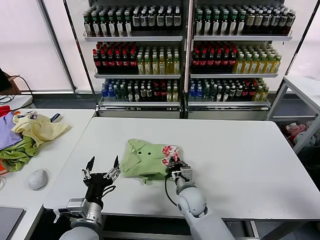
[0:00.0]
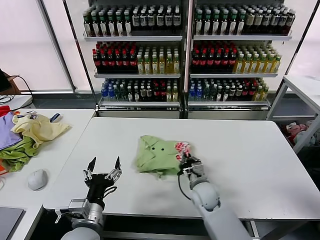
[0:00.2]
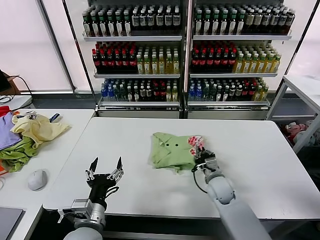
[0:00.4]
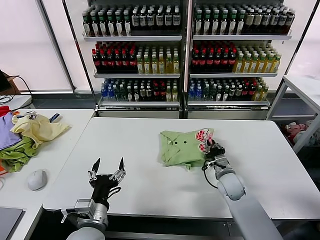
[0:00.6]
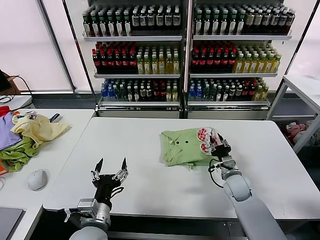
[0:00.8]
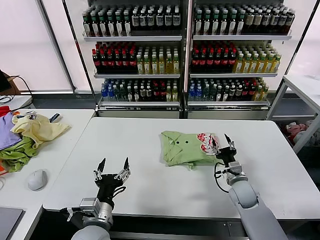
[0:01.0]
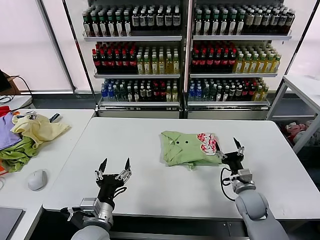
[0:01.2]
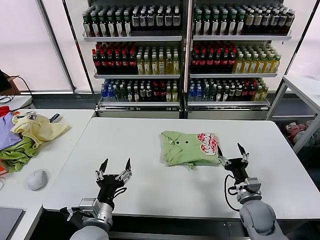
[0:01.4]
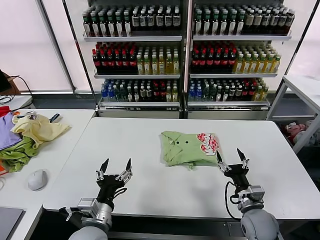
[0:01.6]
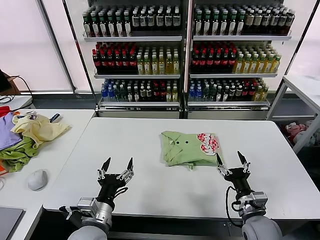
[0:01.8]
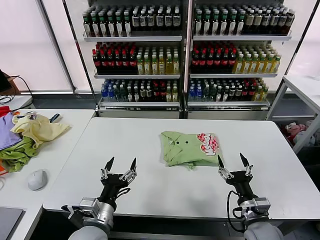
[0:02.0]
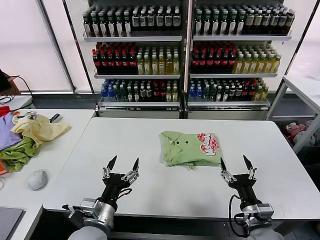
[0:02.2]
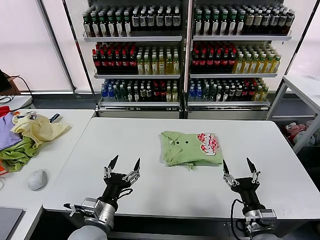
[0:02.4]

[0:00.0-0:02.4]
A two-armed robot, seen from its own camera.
Task of the whole recording: fold and organize the clothes.
0:00.0 to 0:01.2: The right gripper shifts some 20 cm to the right, and opens.
0:01.2 to 0:02.4: The right gripper goes about 15 cm backward.

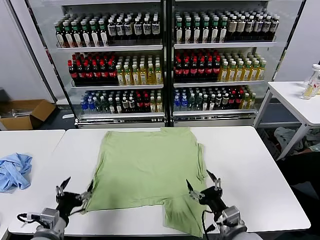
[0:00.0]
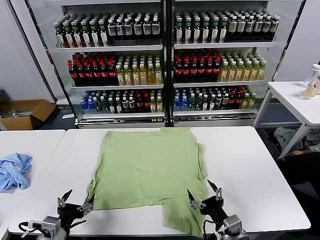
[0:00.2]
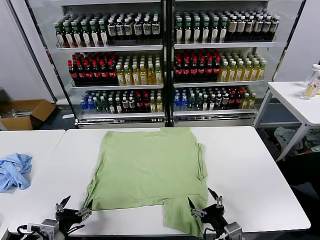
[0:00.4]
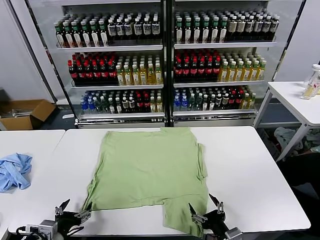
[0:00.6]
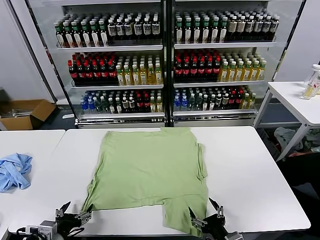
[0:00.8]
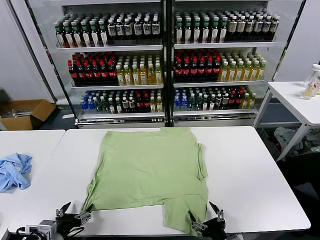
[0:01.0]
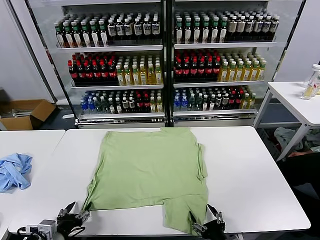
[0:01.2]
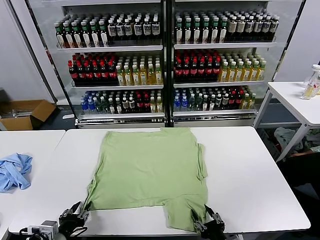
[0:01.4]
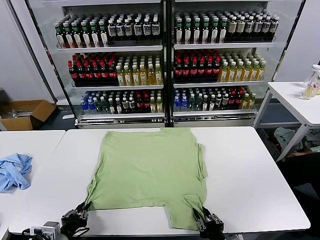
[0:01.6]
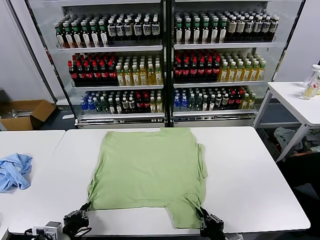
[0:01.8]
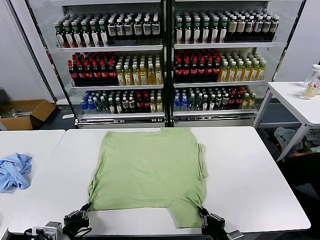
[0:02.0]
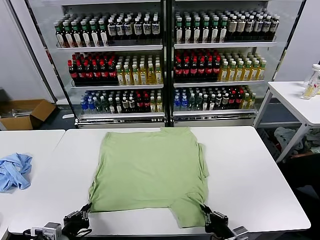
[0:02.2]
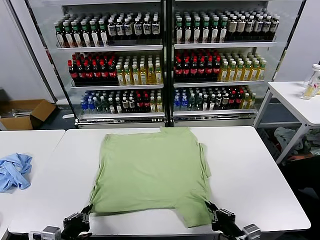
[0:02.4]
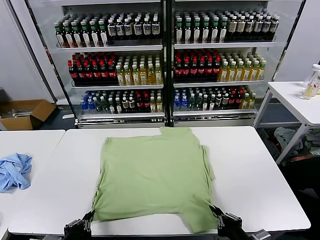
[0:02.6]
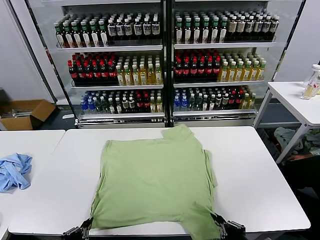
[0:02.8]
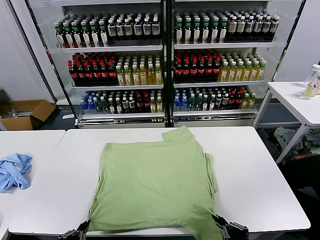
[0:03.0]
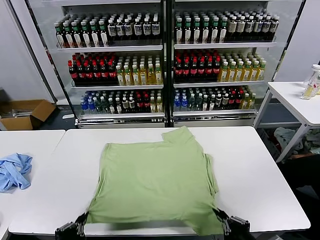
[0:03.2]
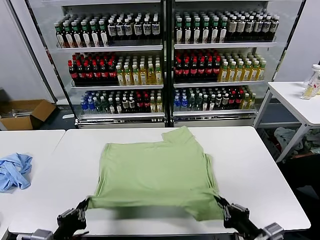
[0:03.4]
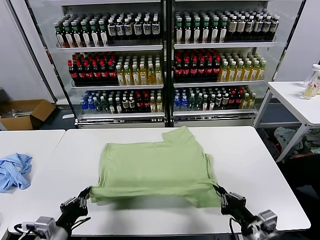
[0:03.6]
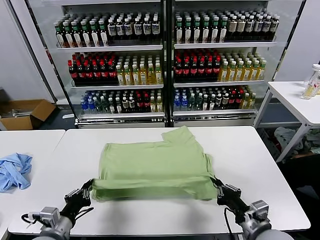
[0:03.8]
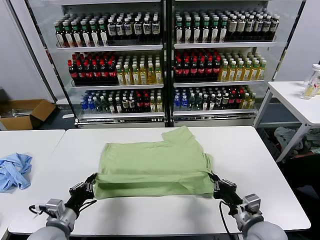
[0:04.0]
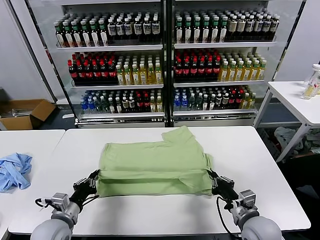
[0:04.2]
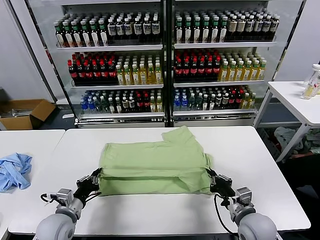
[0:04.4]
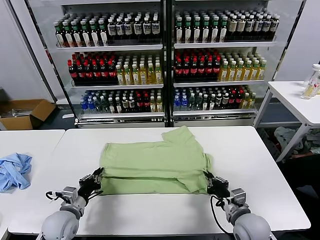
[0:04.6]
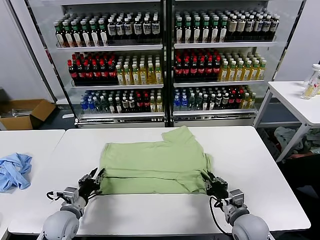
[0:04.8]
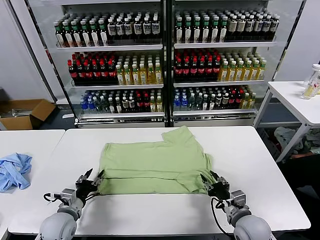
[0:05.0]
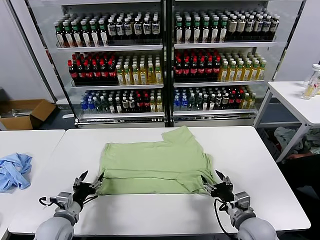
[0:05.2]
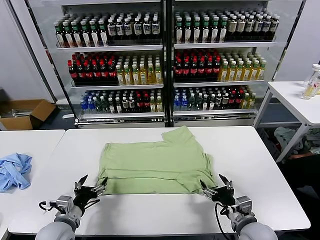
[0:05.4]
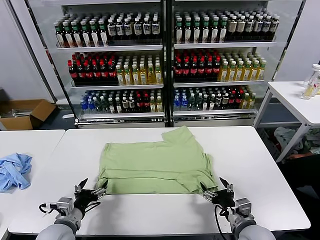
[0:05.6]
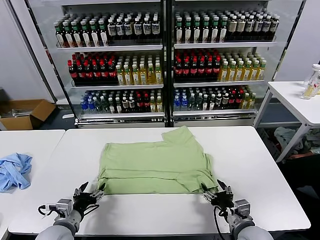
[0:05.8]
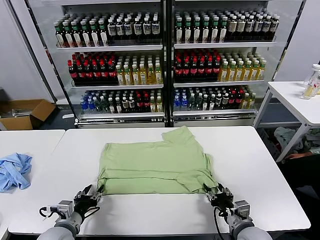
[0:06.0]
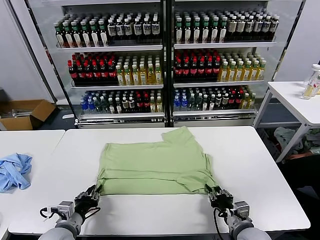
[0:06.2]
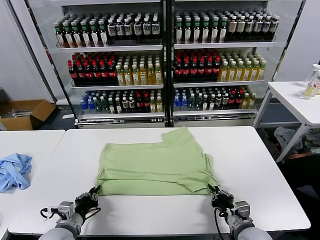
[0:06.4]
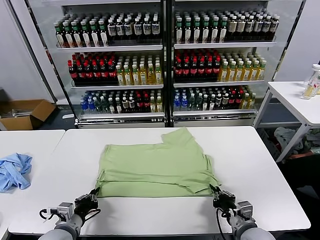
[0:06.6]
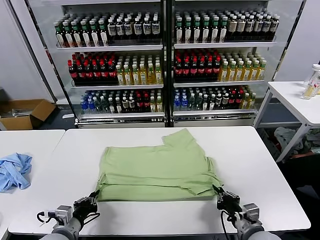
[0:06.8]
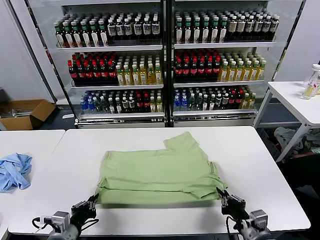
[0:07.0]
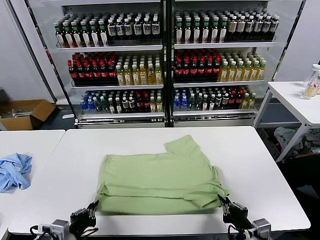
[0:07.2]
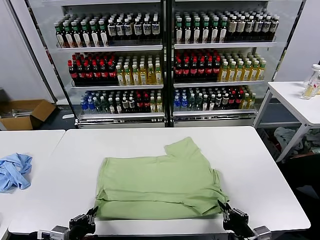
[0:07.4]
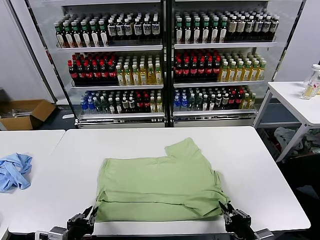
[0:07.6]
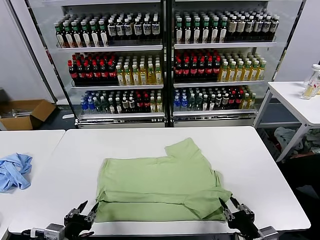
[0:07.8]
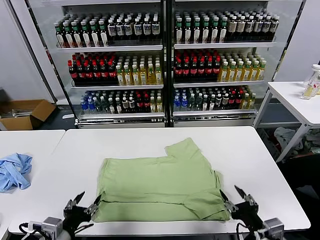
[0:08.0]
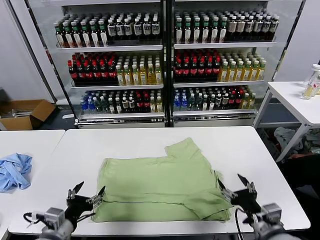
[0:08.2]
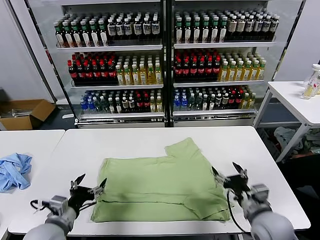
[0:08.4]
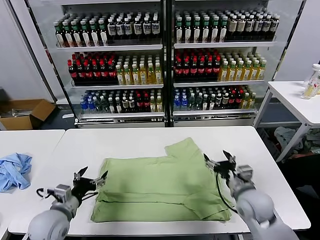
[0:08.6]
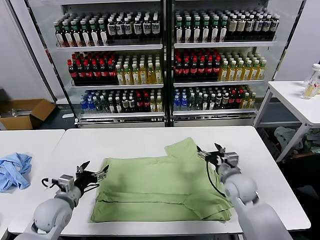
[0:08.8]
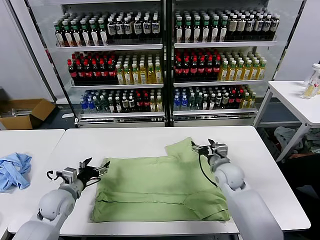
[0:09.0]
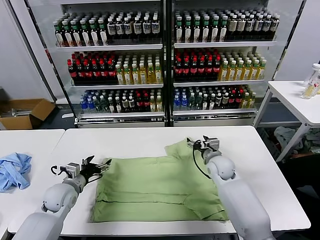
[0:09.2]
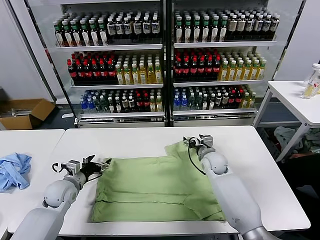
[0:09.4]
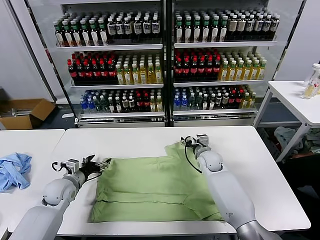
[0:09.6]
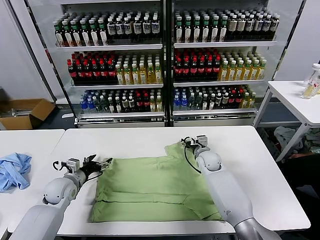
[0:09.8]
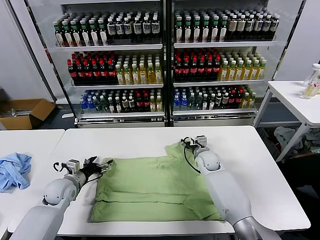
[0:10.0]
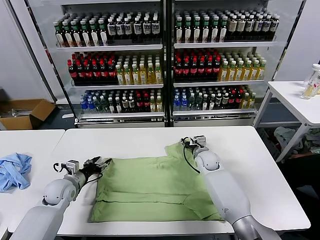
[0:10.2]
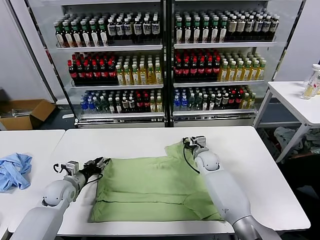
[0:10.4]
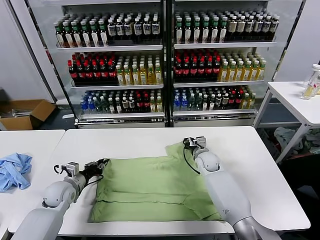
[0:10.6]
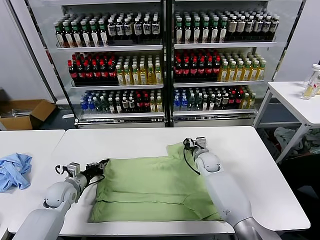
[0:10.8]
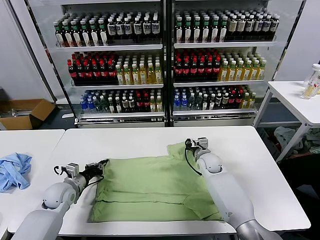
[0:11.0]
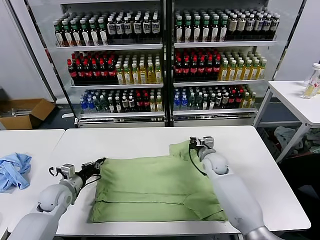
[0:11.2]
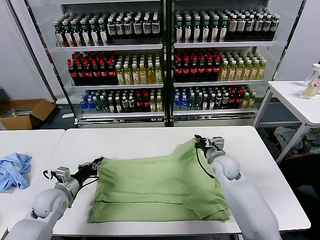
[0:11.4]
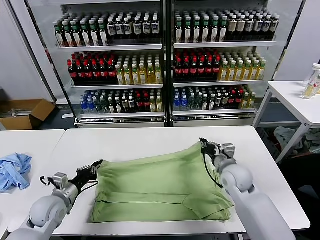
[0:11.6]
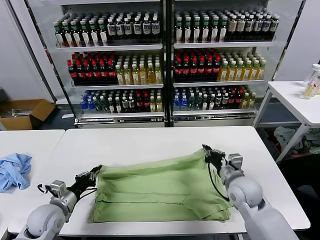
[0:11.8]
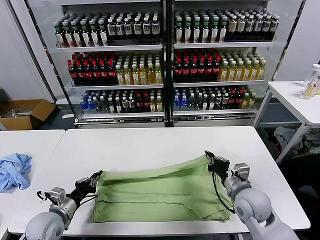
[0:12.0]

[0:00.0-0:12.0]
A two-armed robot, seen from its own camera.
Task of the whole recording: fold and organize the clothes.
Step, 0:00.0 to 0:02.2: use both grippers simultaneously to clamp the lower edge of the clothing fabric.
Step, 0:02.4 to 0:05.0: use both grippers to drag the lower edge of the fabric forward and fold it over the upper edge.
Step, 0:05.2 to 0:07.6: Drag the clothes downward with both gripper.
Step, 0:08.0 to 0:10.8: use both grippers simultaneously to clamp the upper edge of the clothing fabric.
0:01.6 to 0:03.0: The right gripper shifts about 10 cm upward and to the right. Meanwhile the left gripper moves backward and upward, approximately 10 cm.
0:03.0 to 0:04.4: The two grippers go roughly 20 cm forward and downward.
0:04.4 to 0:06.0: The right gripper opens up. Meanwhile the left gripper opens up.
0:06.0 to 0:07.6: The two grippers go approximately 10 cm backward and upward.
0:07.6 to 0:09.0: The left gripper heads forward, covering approximately 20 cm, and opens up, while the right gripper shifts approximately 30 cm forward, and opens.
0:09.0 to 0:10.4: The right gripper goes some 5 cm forward, and closes its fingers, while the left gripper shifts by some 5 cm, and closes up.
0:10.4 to 0:12.0: The right gripper goes roughly 20 cm backward, and closes up, while the left gripper moves backward, some 10 cm, and closes up.

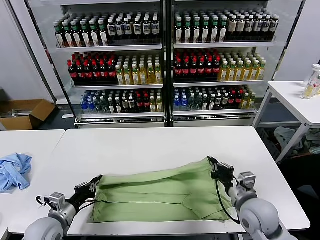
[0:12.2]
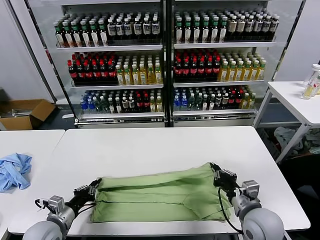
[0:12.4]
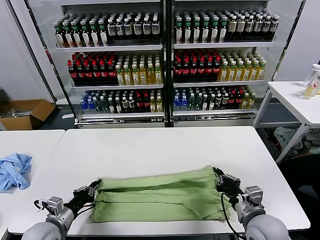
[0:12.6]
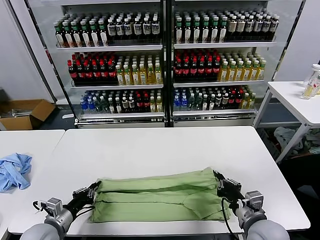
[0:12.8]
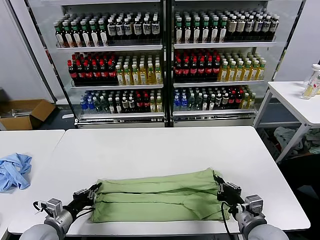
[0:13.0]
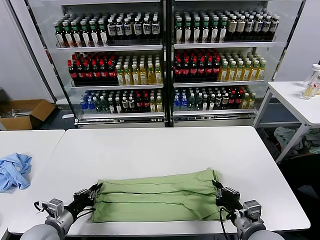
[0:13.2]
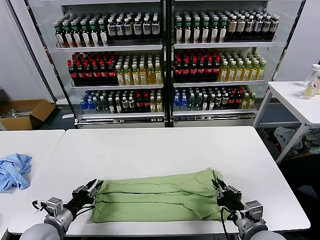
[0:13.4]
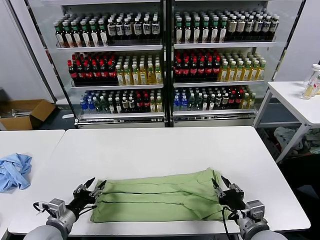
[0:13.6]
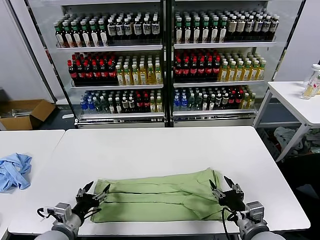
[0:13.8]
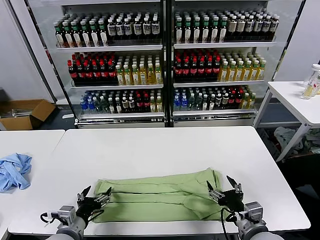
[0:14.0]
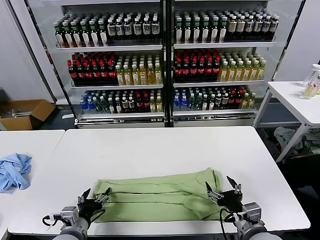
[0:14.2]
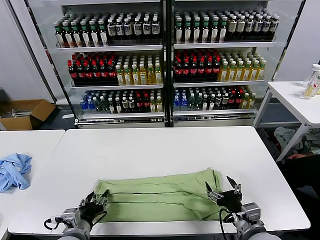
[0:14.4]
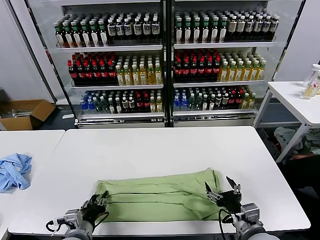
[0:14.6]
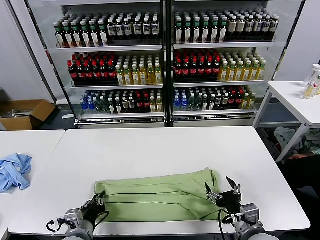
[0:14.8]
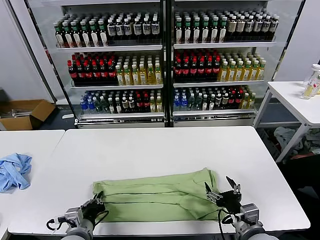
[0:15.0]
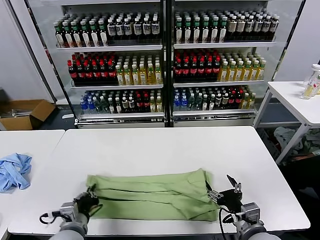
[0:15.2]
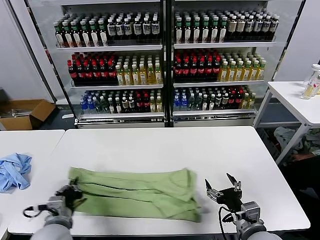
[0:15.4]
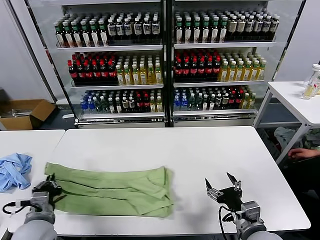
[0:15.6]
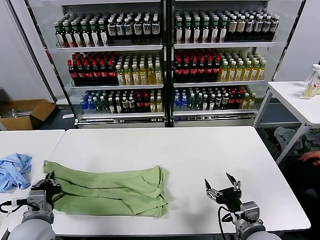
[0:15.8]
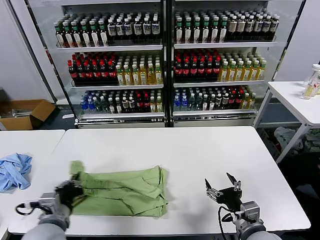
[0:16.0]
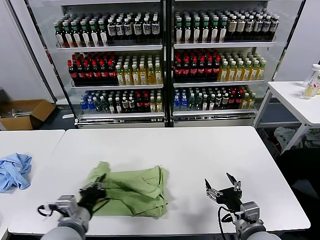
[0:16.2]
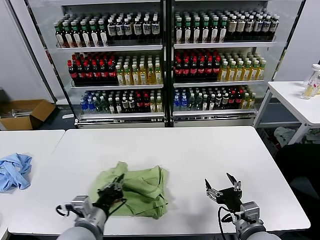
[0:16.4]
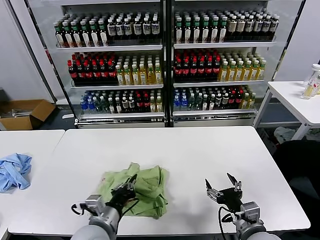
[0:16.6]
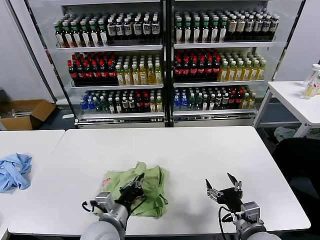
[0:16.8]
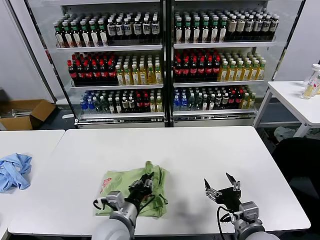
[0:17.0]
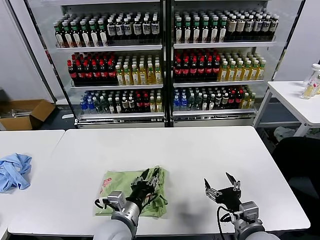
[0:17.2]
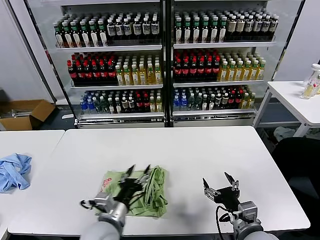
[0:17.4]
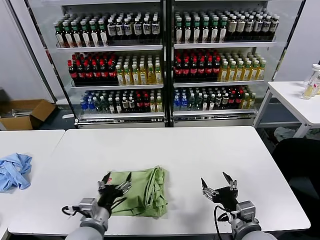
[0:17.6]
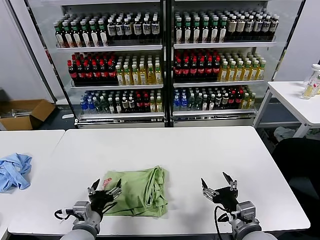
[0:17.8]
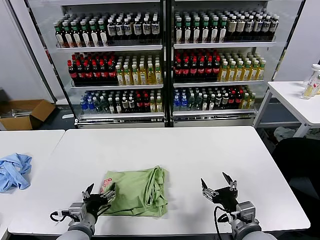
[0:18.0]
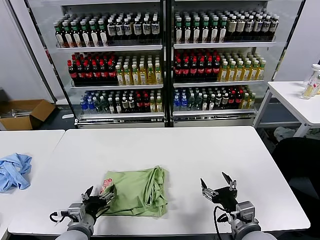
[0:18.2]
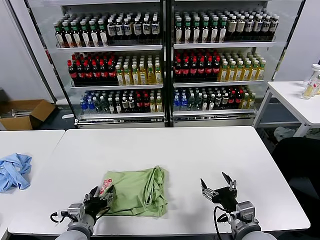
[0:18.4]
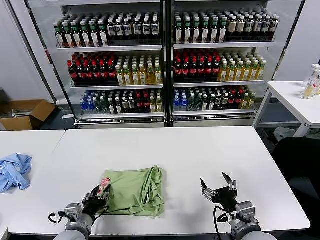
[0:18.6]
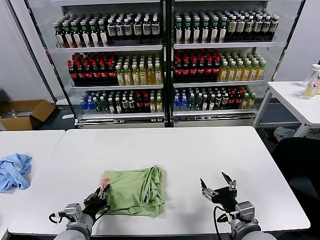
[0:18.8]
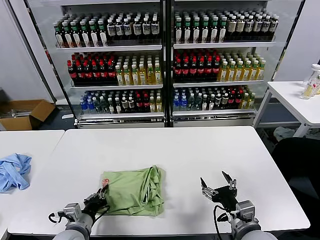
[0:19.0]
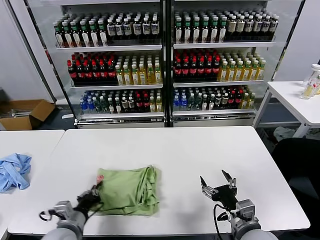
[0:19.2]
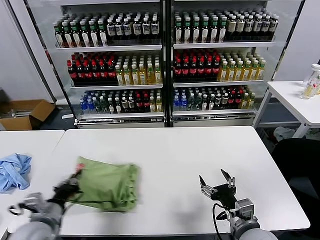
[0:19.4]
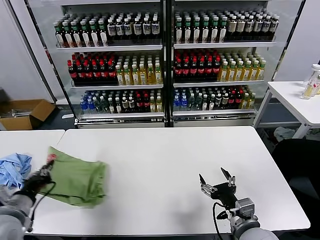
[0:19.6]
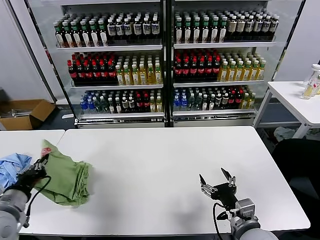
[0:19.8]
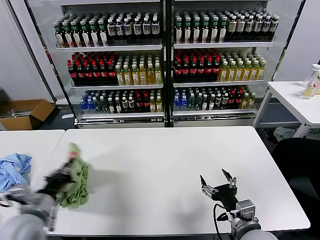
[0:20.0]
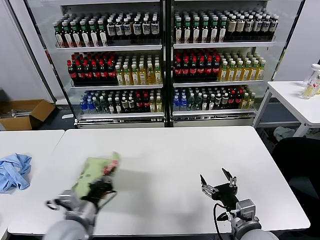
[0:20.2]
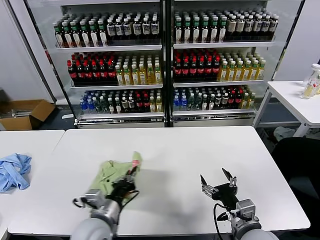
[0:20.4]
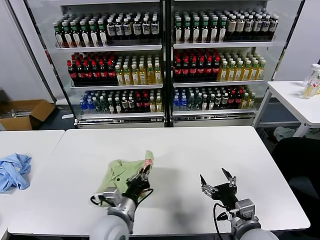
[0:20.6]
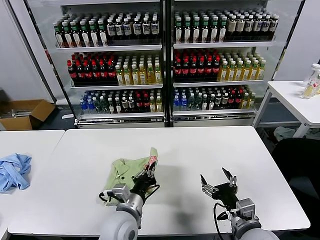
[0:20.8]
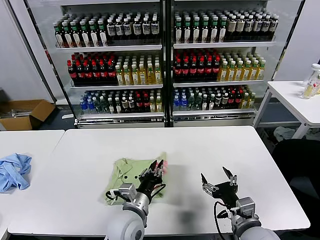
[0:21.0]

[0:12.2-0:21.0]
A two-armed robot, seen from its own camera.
Task of the whole recording: fold and organize the clothes.
Step, 0:12.2 to 0:13.6: use both grippers to drag the upper edge of the fabric backward and fold it over the lower edge.
Step, 0:13.8 to 0:14.8: use the left gripper to clamp the left edge of the fabric.
Step, 0:15.2 to 0:17.2: use the left gripper to drag the left edge of the fabric to the left and folds it over the right edge.
0:12.2 to 0:13.6: The right gripper goes roughly 10 cm backward, and opens up, while the left gripper opens its fingers.
0:13.6 to 0:15.2: The right gripper opens up. Meanwhile the left gripper shifts about 10 cm to the right, and closes.
0:15.2 to 0:16.6: The left gripper heads to the right and upward, covering about 10 cm.
0:16.6 to 0:18.0: The left gripper is displaced downward and to the left by roughly 10 cm, and opens its fingers.
0:18.0 to 0:19.6: The left gripper travels to the left and upward by approximately 15 cm, and closes.
0:19.6 to 0:21.0: The left gripper goes roughly 30 cm to the right.
